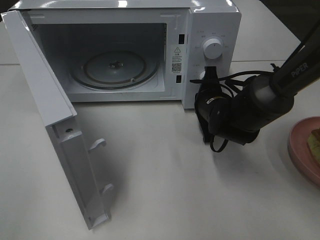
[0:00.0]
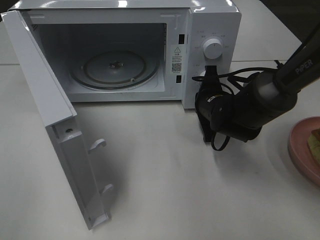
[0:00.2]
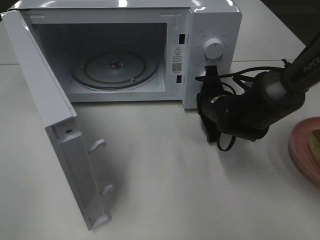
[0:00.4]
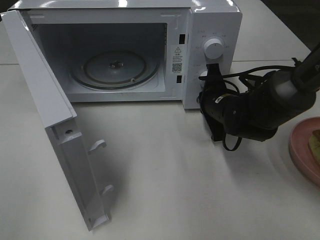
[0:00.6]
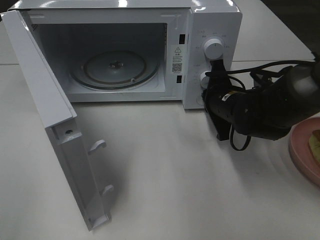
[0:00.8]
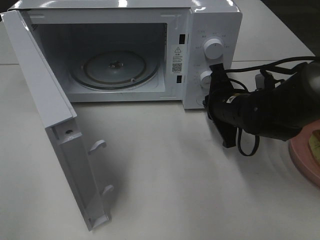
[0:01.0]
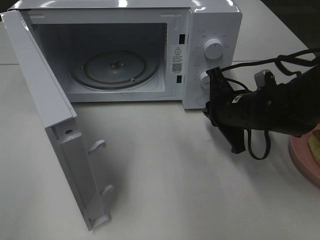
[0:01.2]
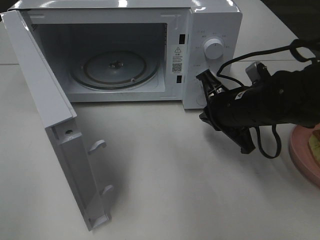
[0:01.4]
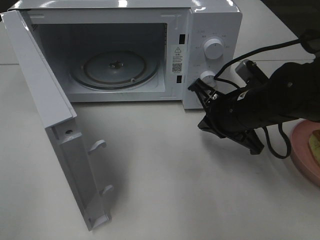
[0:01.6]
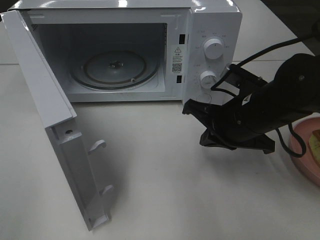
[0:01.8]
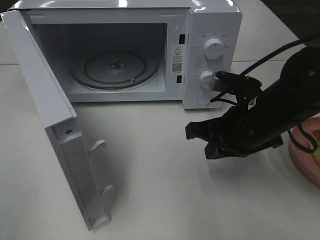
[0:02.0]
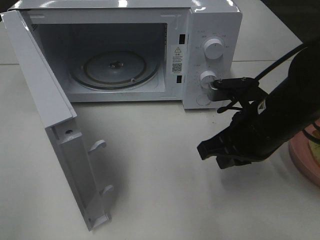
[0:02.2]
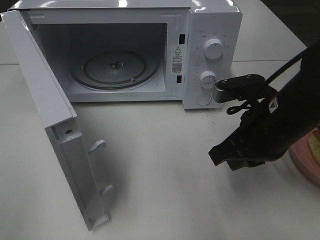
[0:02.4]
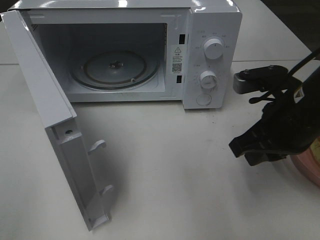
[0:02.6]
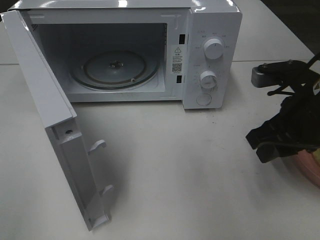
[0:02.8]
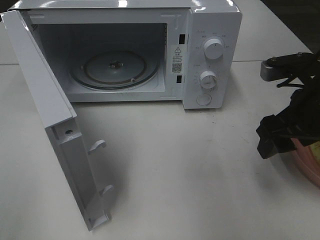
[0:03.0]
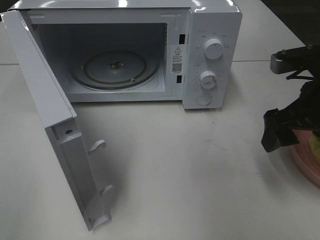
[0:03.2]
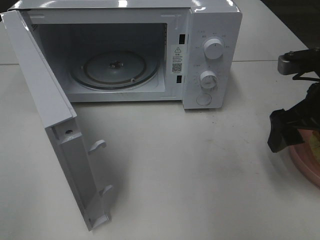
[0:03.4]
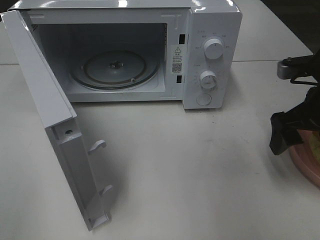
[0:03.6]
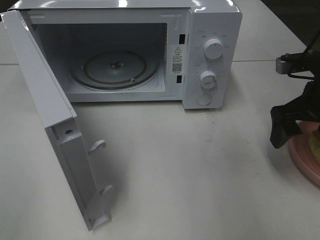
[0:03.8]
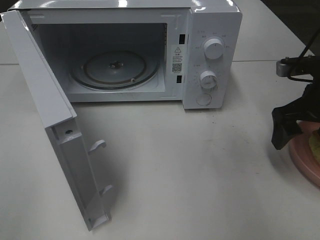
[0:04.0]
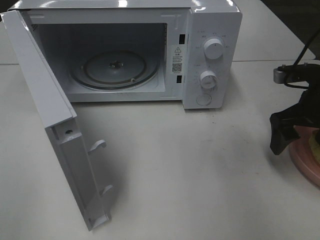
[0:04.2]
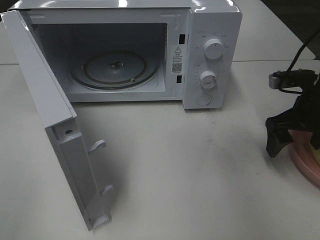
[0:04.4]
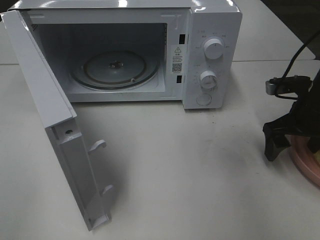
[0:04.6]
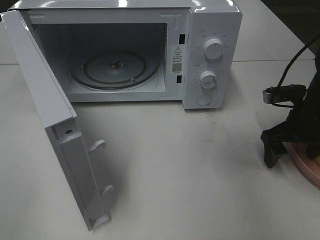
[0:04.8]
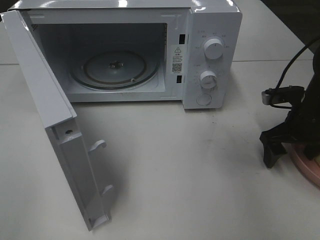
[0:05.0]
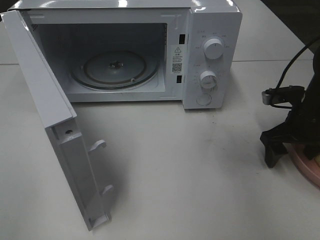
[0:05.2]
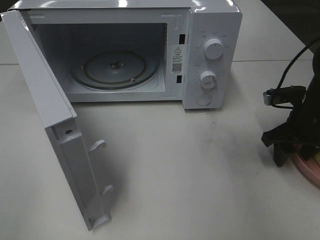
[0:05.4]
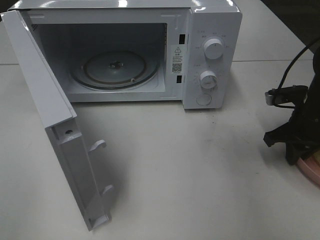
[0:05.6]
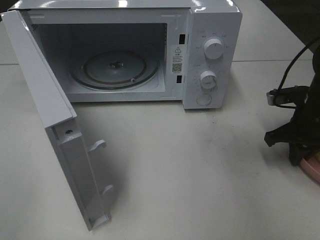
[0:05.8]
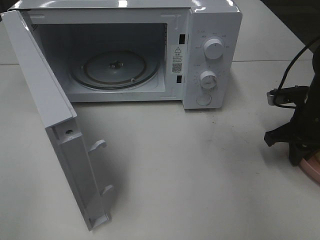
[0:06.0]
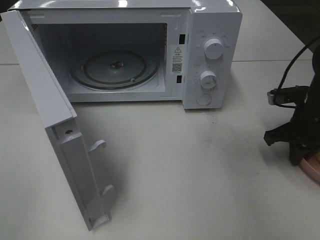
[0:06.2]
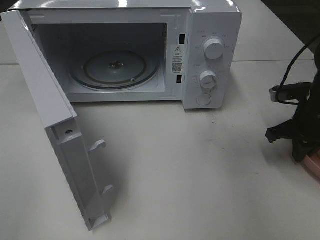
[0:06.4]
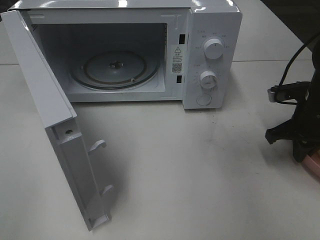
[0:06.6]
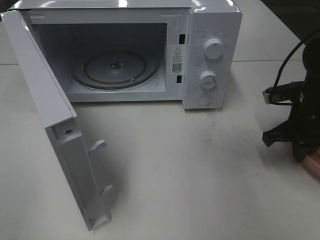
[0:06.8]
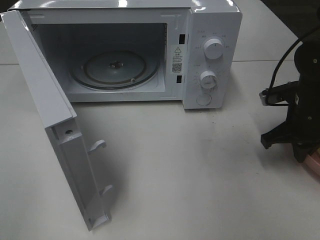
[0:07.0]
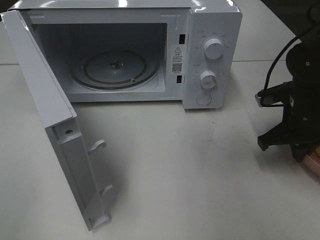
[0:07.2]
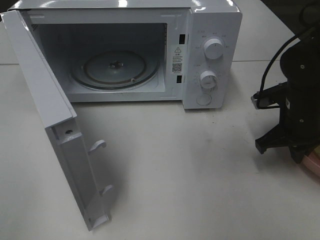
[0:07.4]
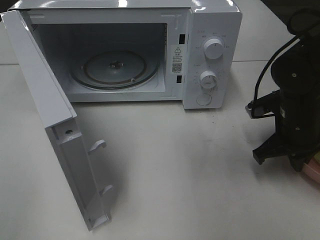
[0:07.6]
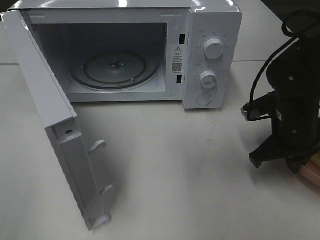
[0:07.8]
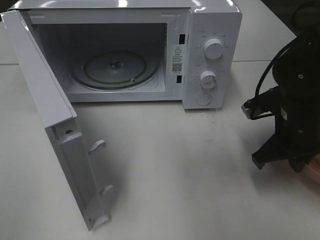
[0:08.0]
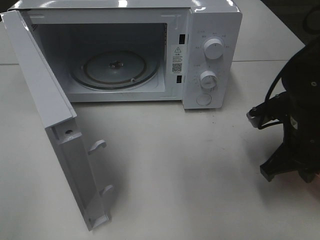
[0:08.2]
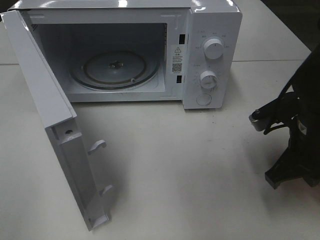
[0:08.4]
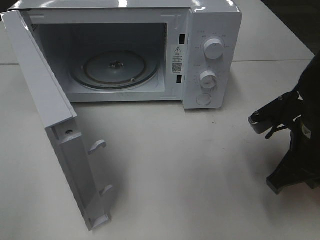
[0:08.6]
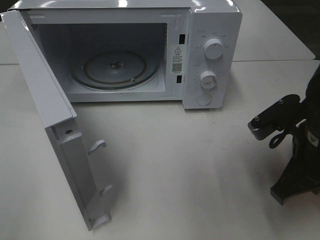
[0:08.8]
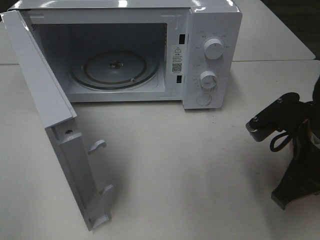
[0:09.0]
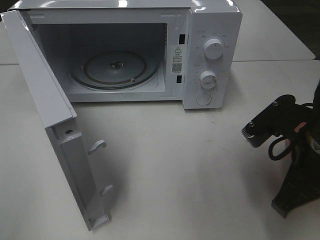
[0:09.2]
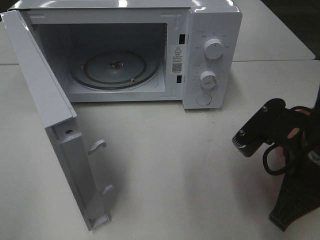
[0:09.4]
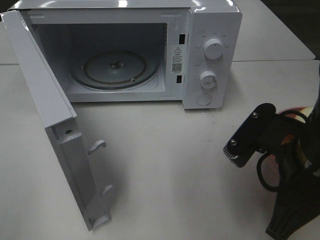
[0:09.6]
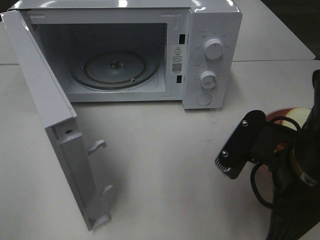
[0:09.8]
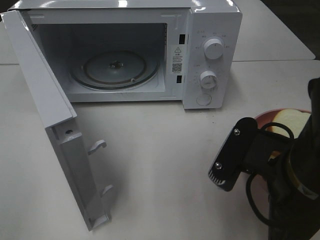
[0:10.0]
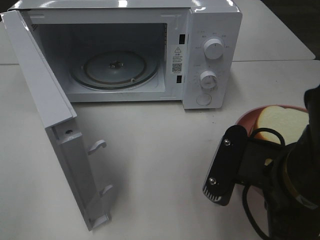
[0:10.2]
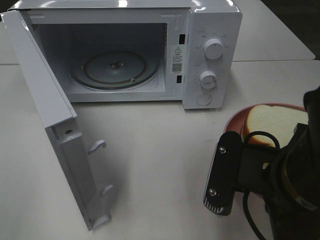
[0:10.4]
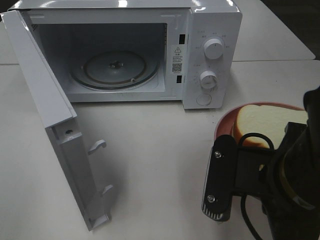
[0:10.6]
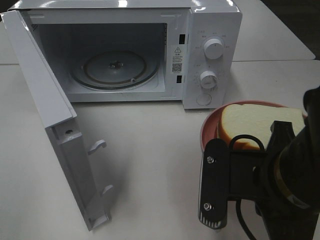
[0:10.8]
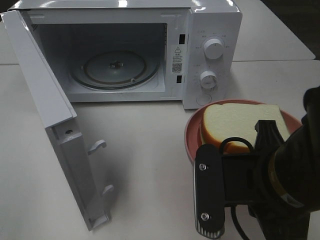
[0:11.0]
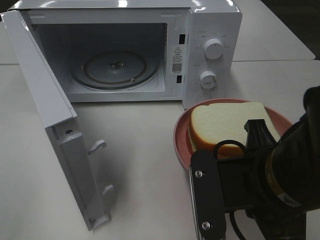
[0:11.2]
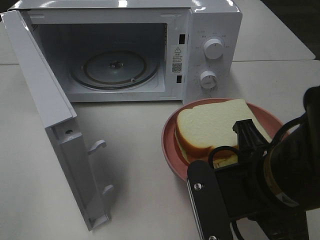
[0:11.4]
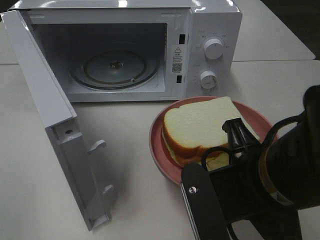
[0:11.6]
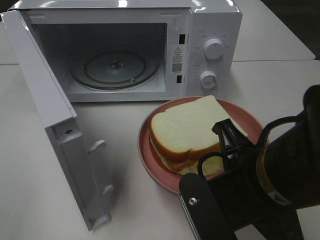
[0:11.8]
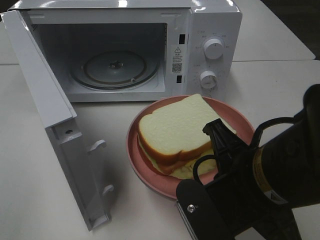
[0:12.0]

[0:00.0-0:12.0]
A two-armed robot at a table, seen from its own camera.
Task of the whole recording: Heat Sandwich.
Step, 0:01.2 to 0:05.8: Right hand: grab the plate with the sandwich.
0:00.0 to 0:01.6: The right gripper travels backward and upward by about 10 cm.
0:01.6 to 0:03.0: The right gripper goes some 10 cm to the right and upward, and opens its fingers.
0:03.0 to 0:04.4: The right gripper is displaced forward, downward and to the right by approximately 10 cm.
0:04.4 to 0:06.0: The right gripper closes its fingers.
0:06.0 to 0:07.6: The right gripper travels to the left by some 5 cm.
0:07.6 to 0:09.0: The right gripper heads backward and upward, covering about 10 cm.
0:09.0 to 0:10.4: The right gripper moves backward and to the left, about 10 cm.

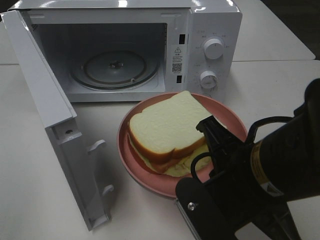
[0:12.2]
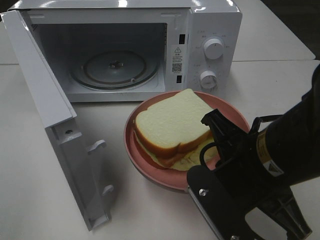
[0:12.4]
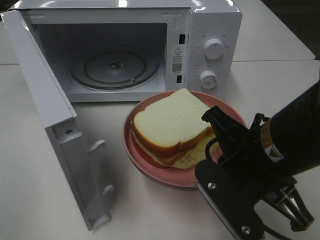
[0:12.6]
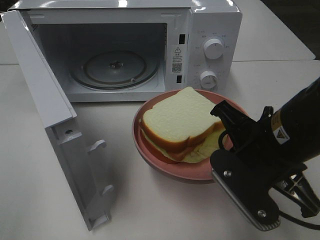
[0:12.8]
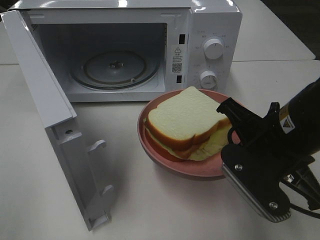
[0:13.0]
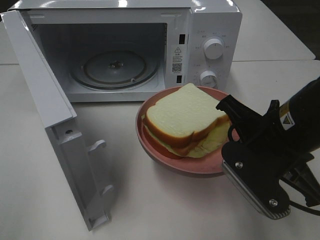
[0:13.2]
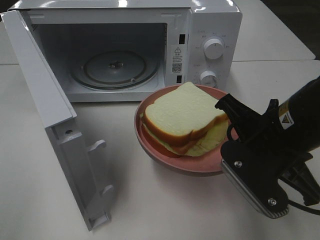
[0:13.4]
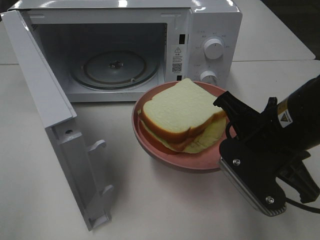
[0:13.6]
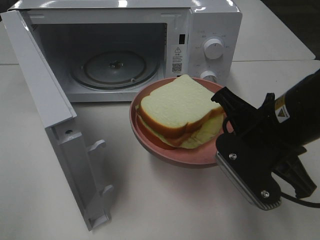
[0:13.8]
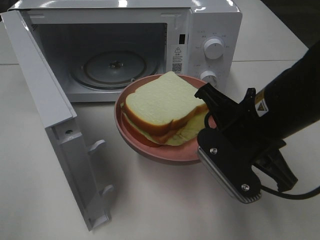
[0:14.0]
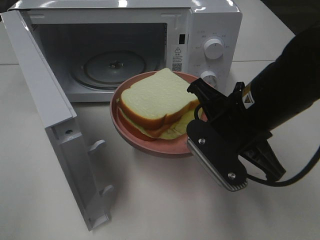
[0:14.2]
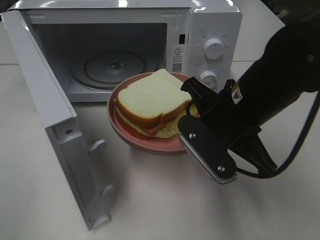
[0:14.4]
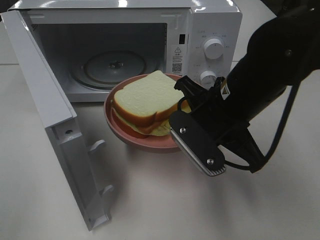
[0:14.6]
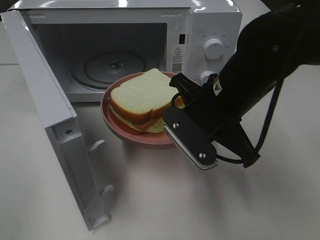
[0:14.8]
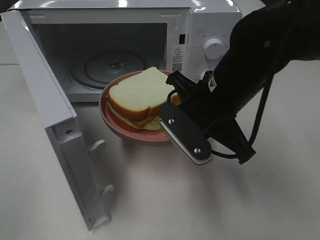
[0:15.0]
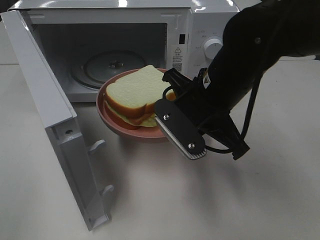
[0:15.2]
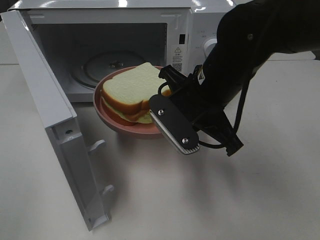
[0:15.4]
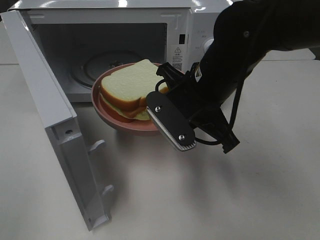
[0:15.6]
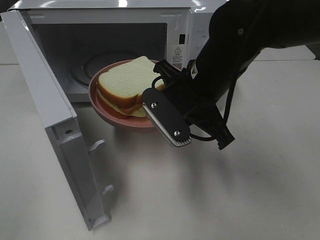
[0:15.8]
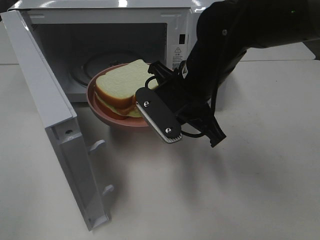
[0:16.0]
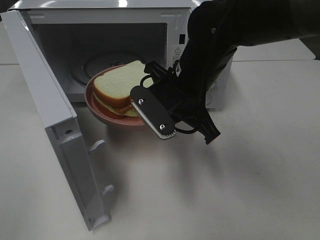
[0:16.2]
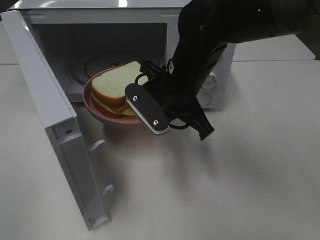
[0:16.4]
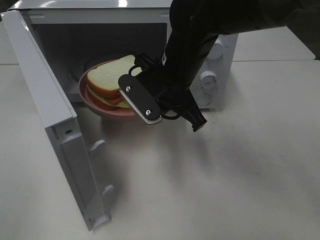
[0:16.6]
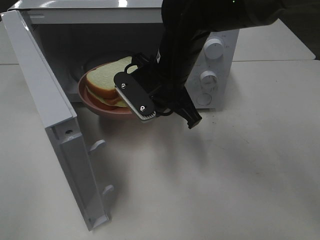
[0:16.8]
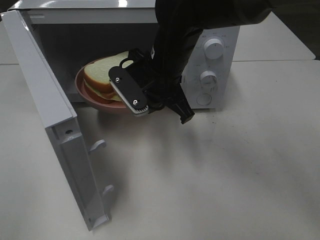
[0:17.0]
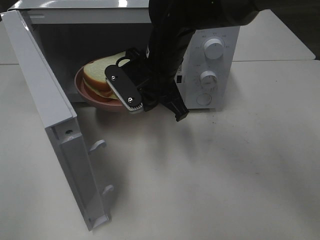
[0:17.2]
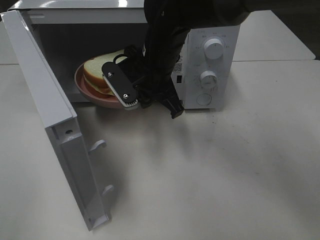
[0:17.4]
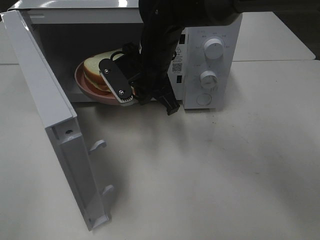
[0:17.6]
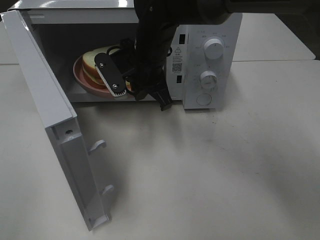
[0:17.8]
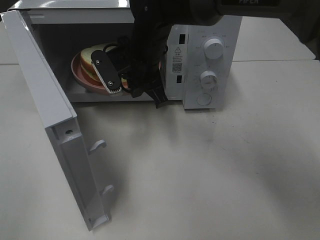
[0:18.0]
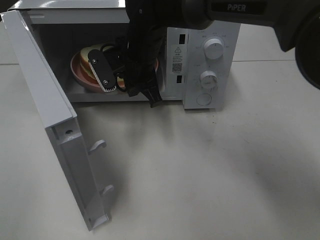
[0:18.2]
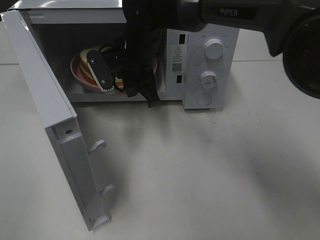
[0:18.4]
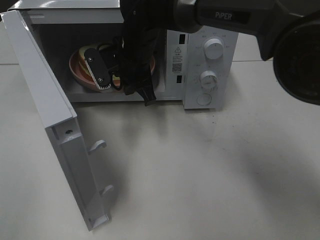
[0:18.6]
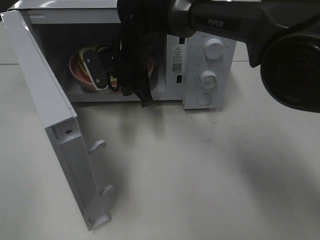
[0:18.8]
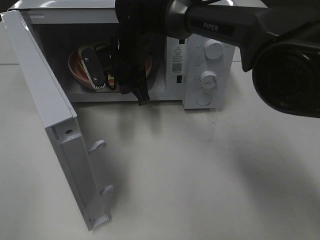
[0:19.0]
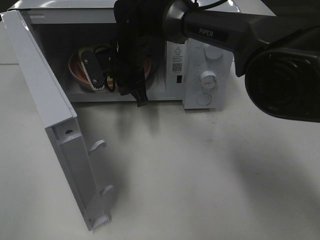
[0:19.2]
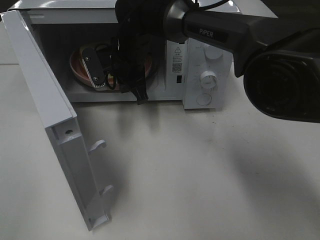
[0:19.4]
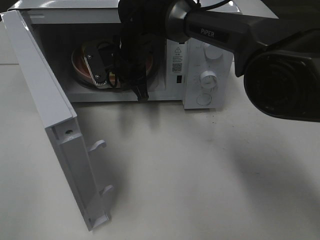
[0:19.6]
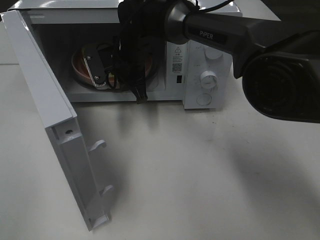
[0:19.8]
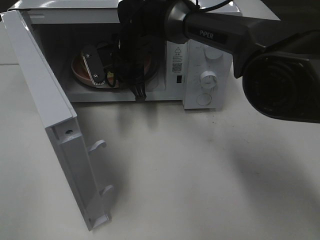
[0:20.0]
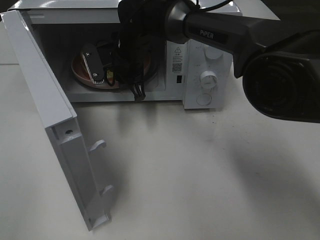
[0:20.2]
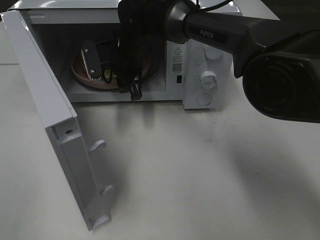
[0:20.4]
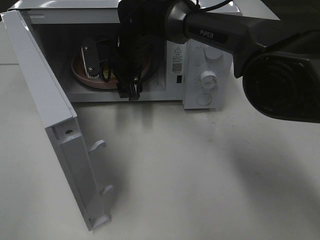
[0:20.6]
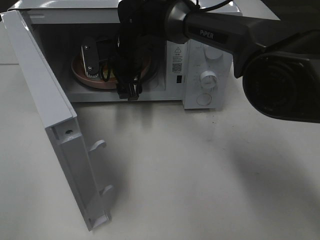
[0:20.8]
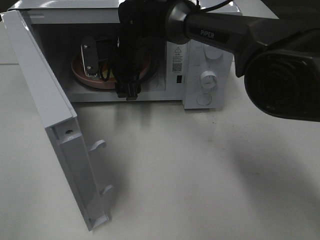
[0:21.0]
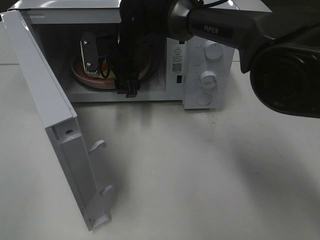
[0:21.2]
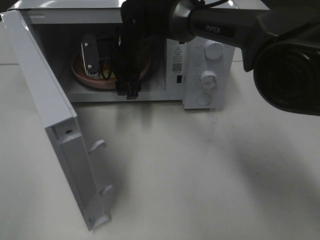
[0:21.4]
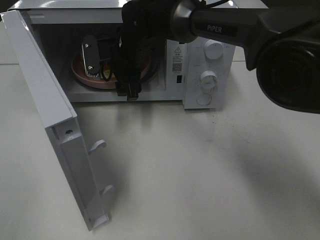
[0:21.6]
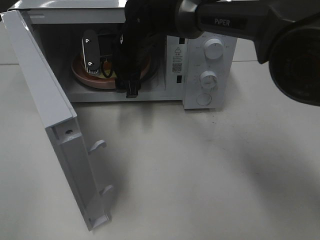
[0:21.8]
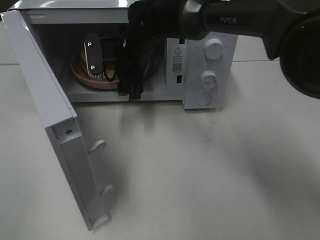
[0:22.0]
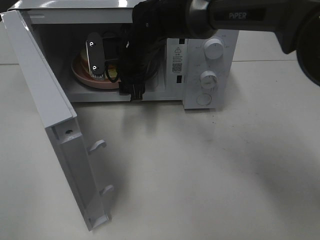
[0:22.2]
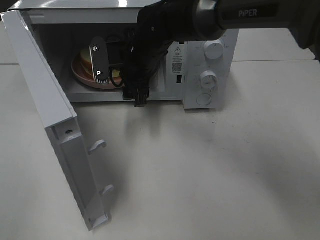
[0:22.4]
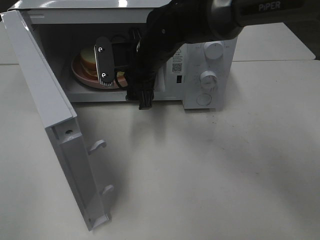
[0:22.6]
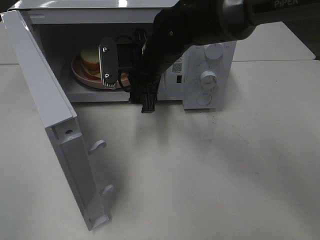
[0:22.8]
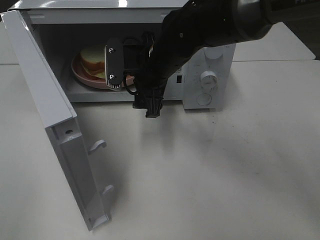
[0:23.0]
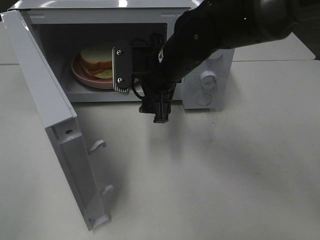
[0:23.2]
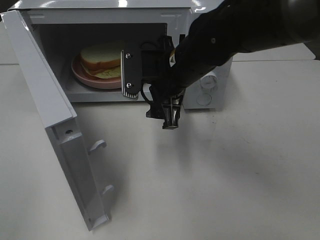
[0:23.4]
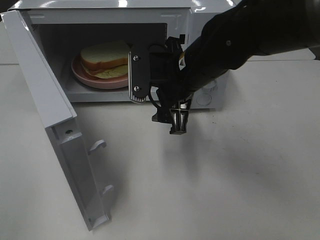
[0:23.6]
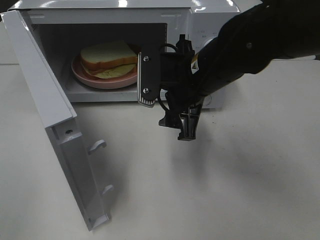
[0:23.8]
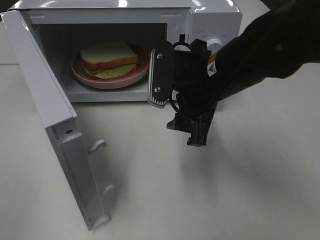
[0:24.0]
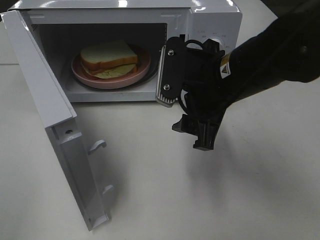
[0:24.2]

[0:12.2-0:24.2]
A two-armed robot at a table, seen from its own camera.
Task of the whole recording: Heat Sandwich.
Step, 0:12.2 to 0:22.0: Right hand: place the plate in the microwave.
0:12.2 to 0:13.8: The right gripper heads forward, covering about 5 cm.
0:13.8 to 0:15.2: The right gripper shifts about 10 cm to the left and forward.
0:15.2 to 0:16.6: The right gripper heads forward, covering about 5 cm.
0:16.6 to 0:18.2: The right gripper travels forward and to the left by about 10 cm.
0:18.2 to 0:19.8: The grippers stay close to where they were, moving slightly.
0:19.8 to 0:21.2: The right gripper opens its fingers.
0:21.2 to 0:22.6: The right gripper goes some 5 cm backward.
0:22.6 to 0:24.2: The right gripper is displaced backward and to the right by about 15 cm.
